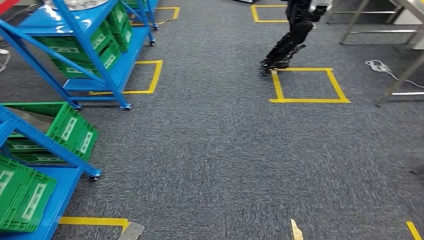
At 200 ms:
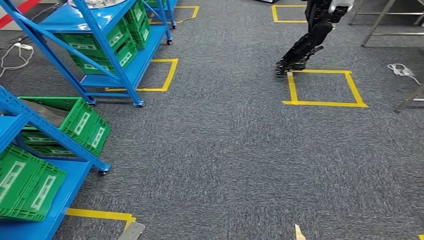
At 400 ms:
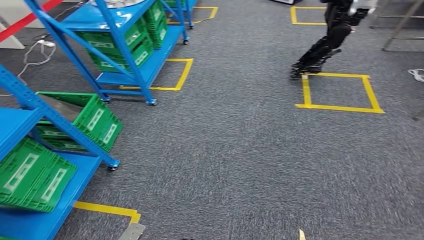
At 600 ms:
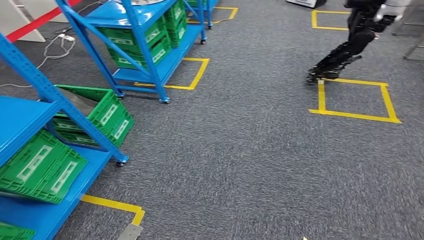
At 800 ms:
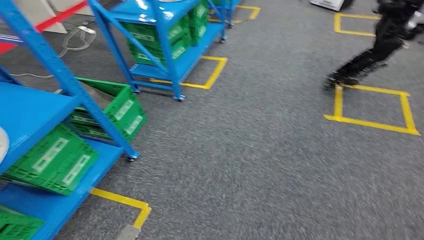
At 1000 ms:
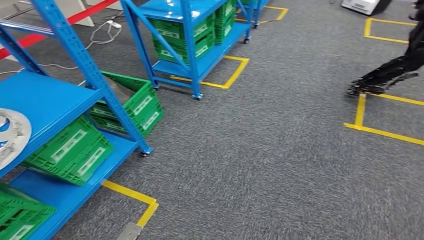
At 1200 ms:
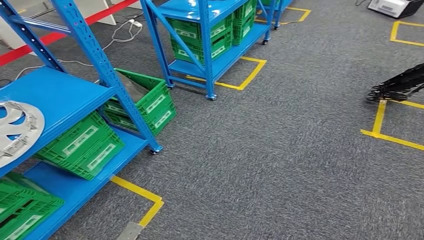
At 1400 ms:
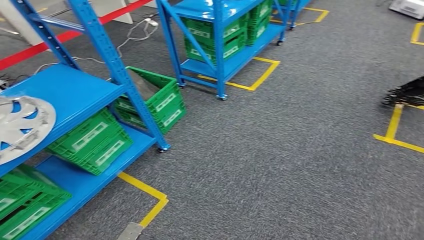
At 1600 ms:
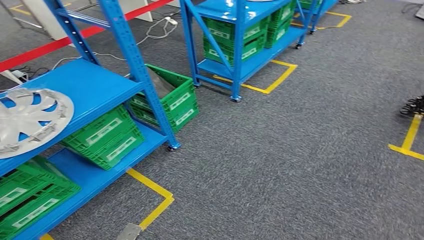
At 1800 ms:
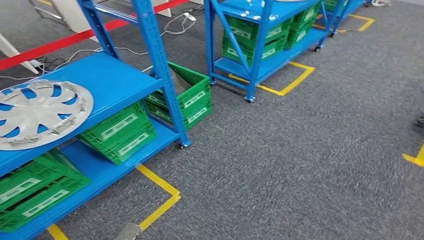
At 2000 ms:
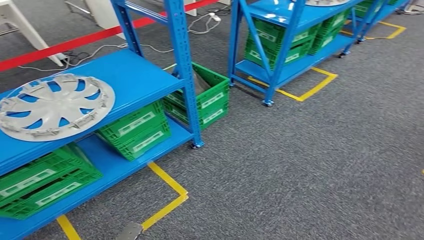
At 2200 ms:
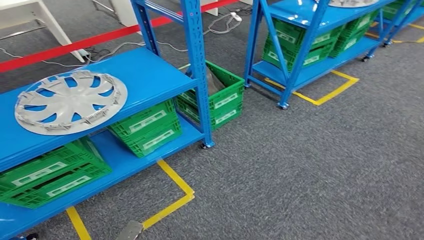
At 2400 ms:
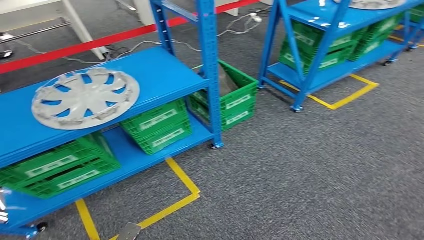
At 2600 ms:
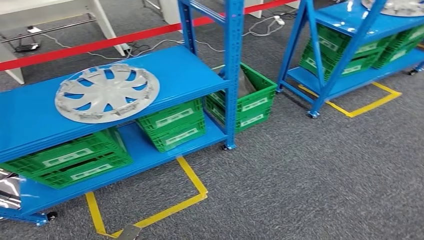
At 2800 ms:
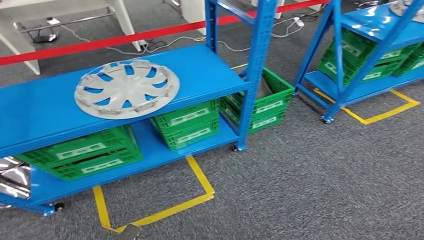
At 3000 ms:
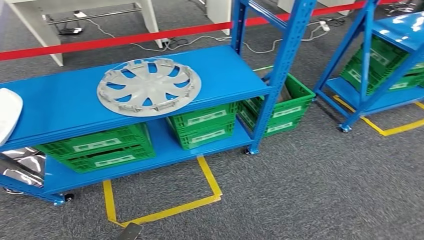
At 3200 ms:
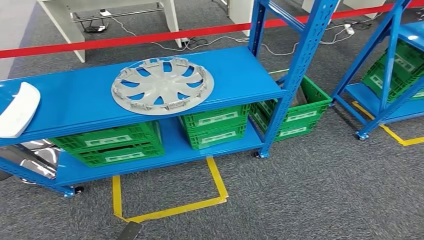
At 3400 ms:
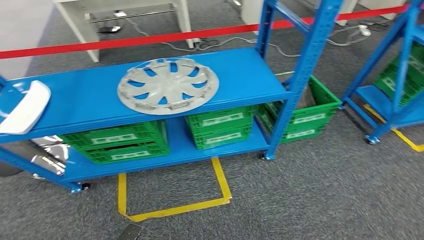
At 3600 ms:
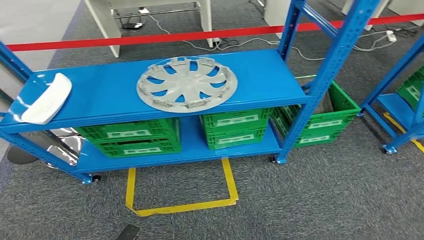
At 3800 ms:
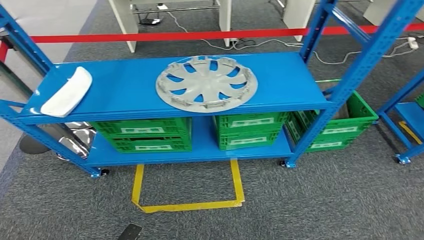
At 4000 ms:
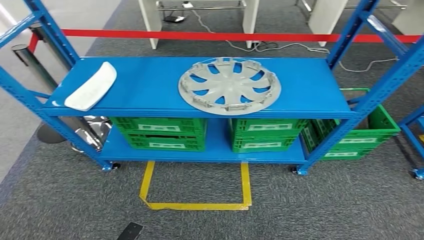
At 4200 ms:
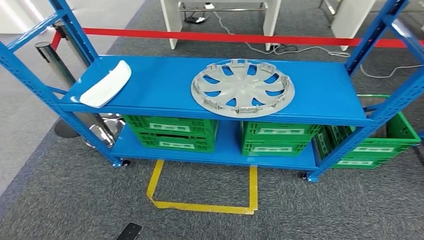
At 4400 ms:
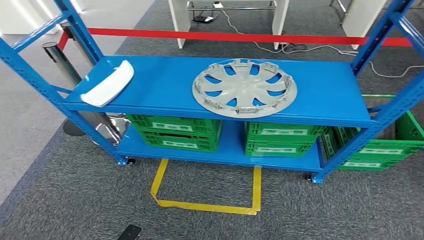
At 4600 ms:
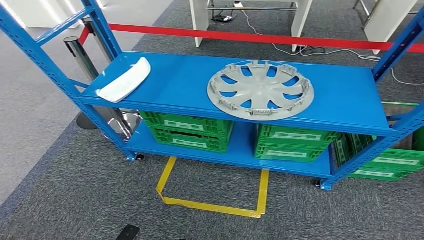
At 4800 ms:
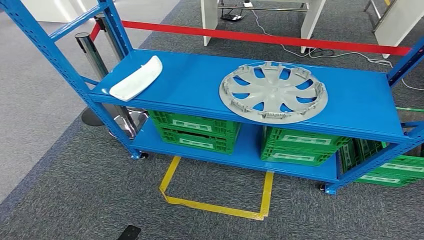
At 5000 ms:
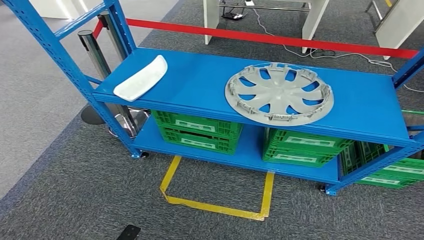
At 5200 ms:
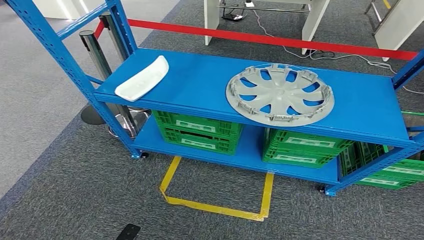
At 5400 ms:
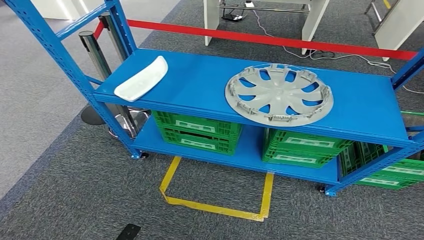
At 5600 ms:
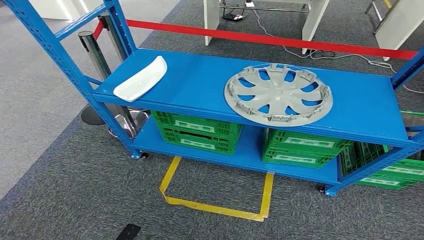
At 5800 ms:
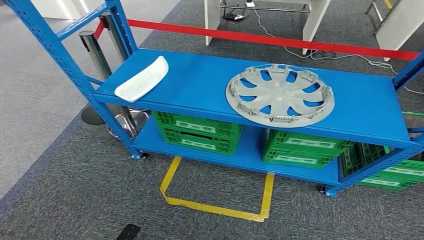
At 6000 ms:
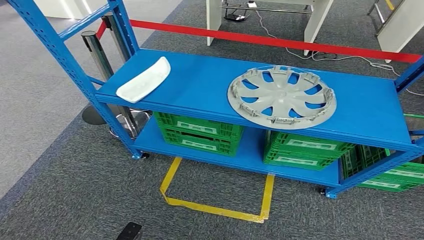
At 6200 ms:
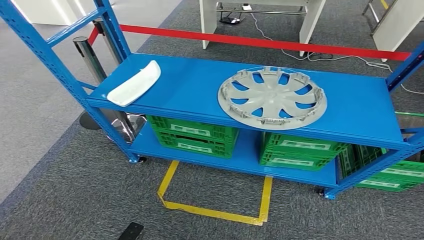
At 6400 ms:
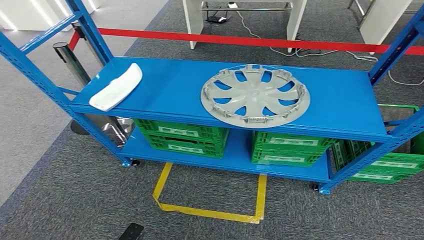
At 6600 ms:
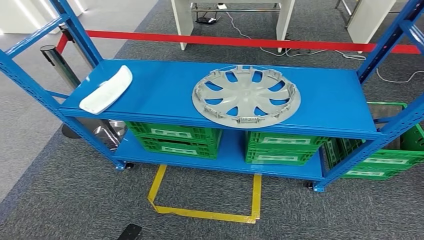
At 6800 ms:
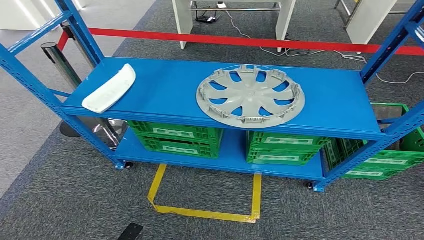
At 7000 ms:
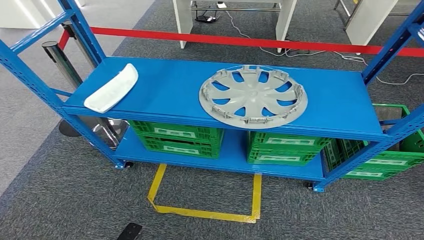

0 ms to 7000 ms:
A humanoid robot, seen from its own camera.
Step, 0 ms to 7000 ms: Return to the initial position at the workbench.

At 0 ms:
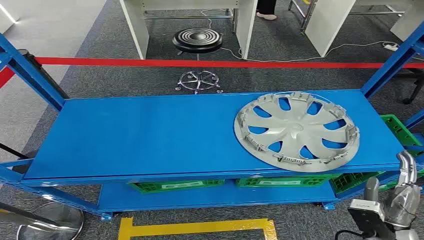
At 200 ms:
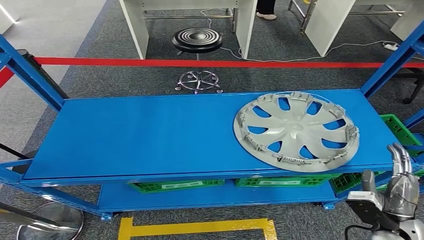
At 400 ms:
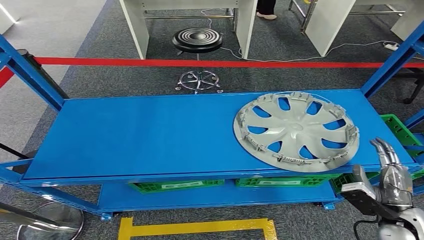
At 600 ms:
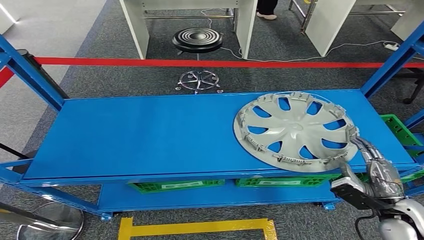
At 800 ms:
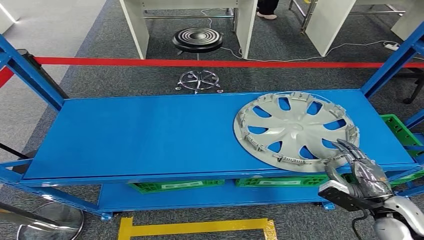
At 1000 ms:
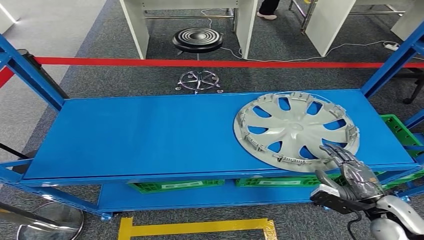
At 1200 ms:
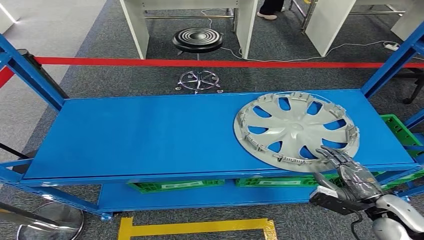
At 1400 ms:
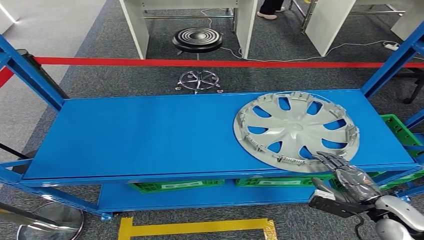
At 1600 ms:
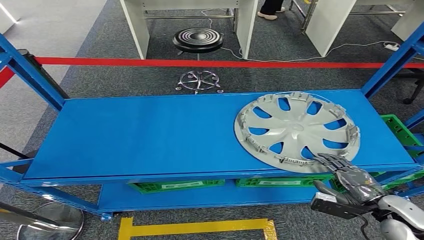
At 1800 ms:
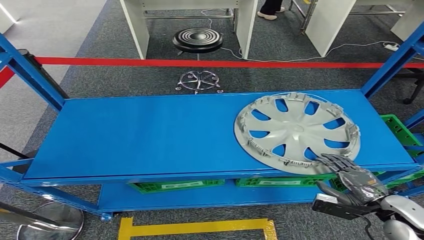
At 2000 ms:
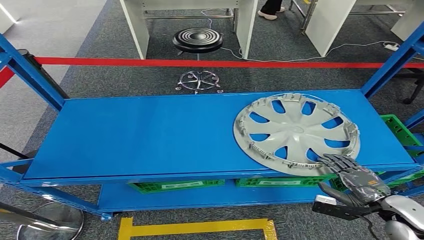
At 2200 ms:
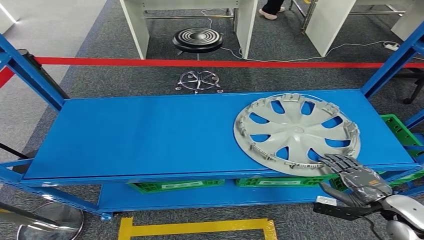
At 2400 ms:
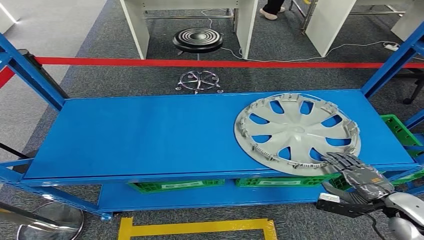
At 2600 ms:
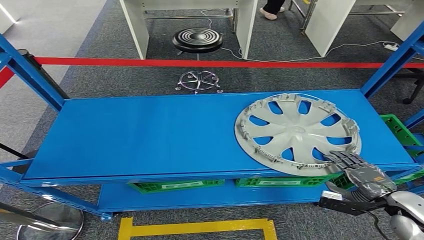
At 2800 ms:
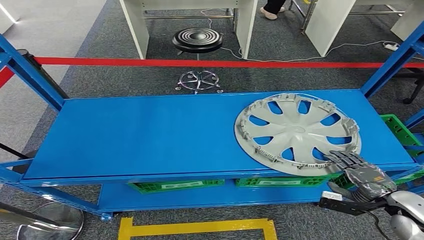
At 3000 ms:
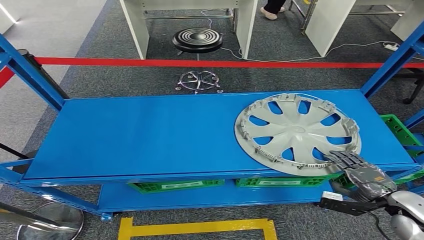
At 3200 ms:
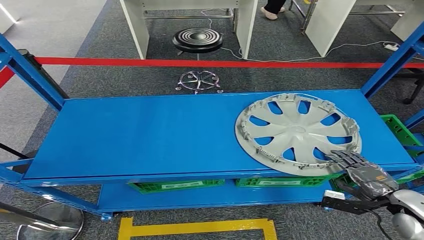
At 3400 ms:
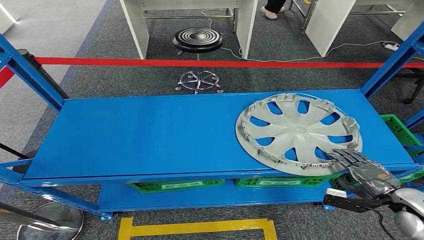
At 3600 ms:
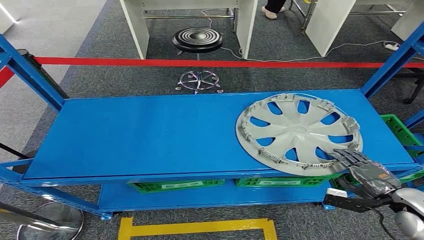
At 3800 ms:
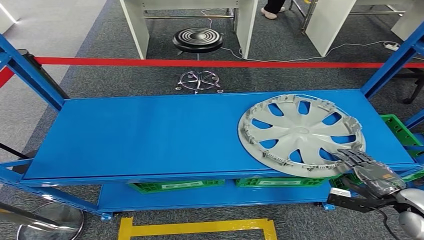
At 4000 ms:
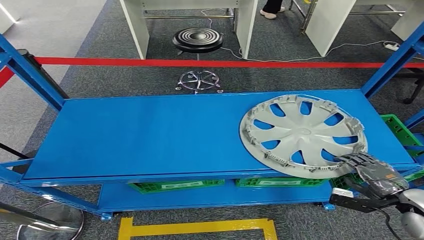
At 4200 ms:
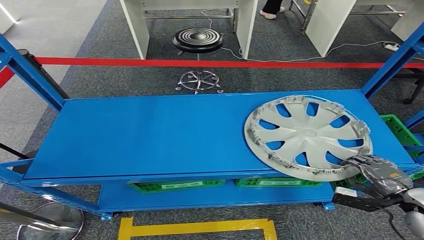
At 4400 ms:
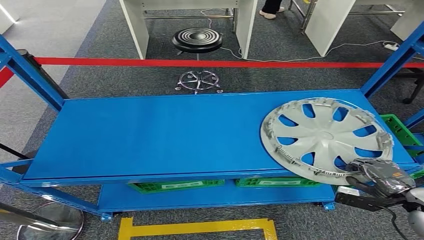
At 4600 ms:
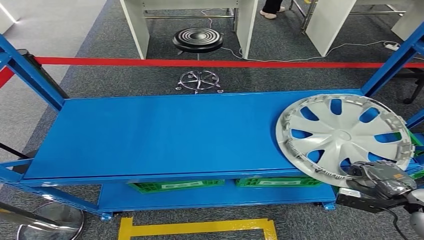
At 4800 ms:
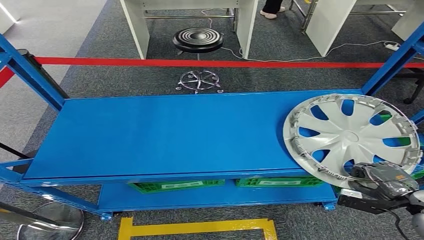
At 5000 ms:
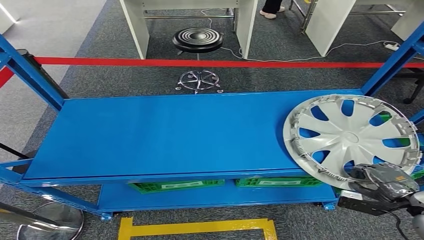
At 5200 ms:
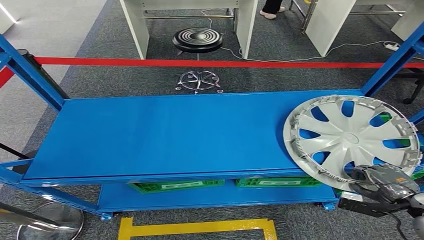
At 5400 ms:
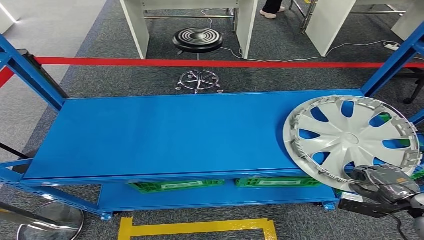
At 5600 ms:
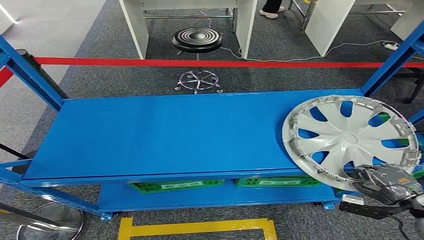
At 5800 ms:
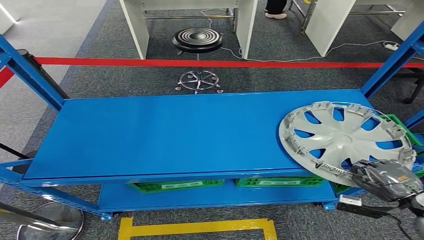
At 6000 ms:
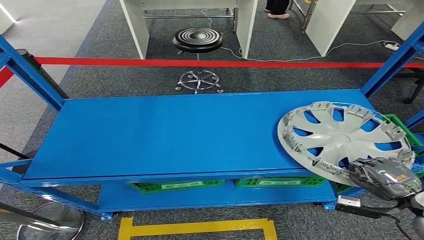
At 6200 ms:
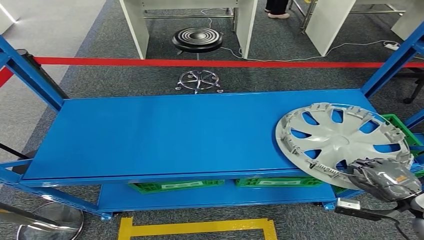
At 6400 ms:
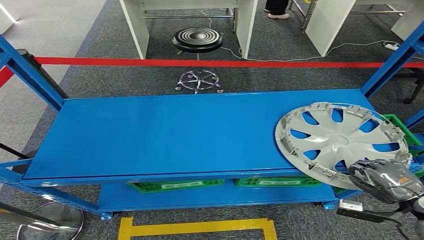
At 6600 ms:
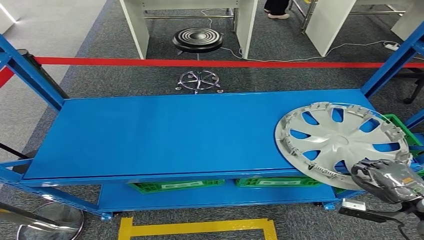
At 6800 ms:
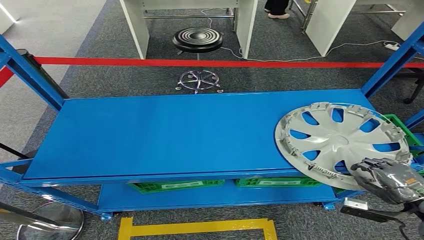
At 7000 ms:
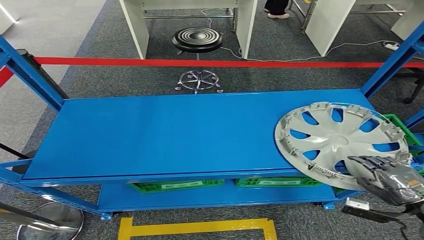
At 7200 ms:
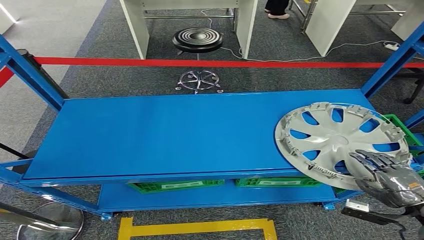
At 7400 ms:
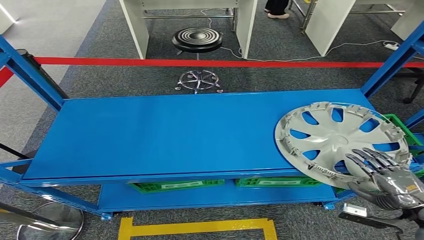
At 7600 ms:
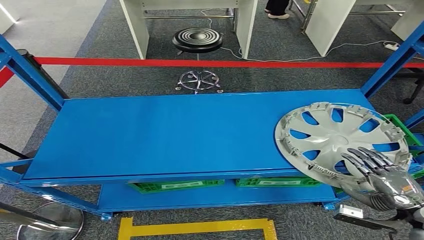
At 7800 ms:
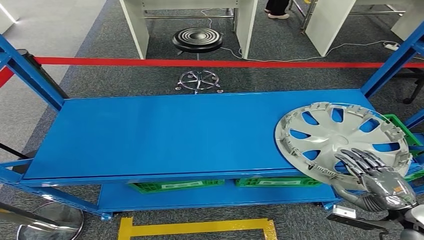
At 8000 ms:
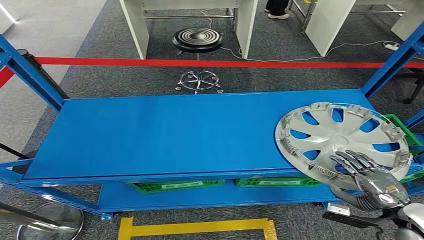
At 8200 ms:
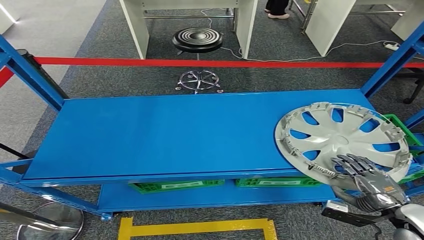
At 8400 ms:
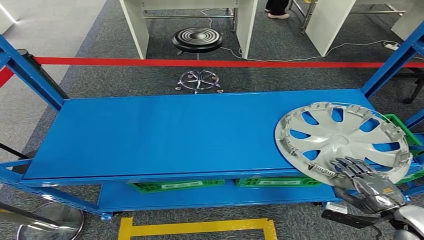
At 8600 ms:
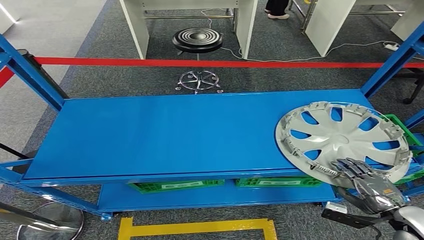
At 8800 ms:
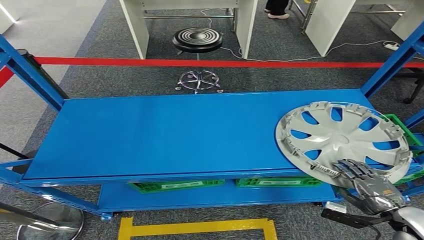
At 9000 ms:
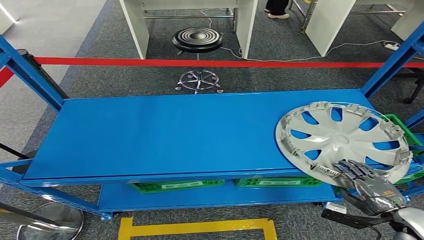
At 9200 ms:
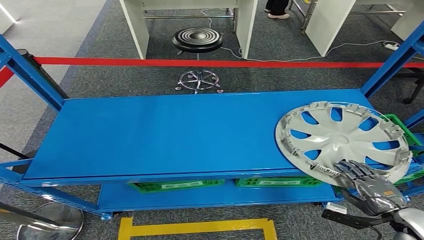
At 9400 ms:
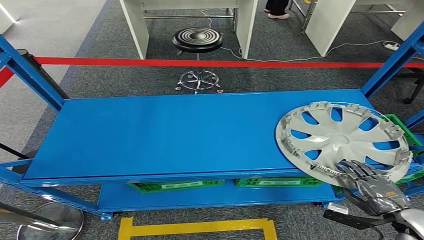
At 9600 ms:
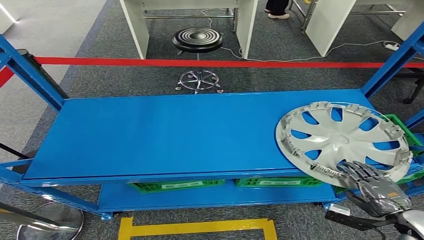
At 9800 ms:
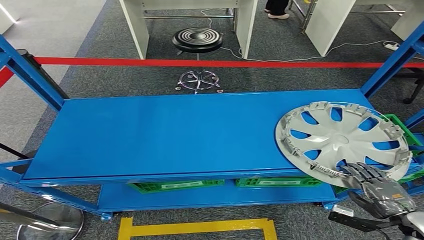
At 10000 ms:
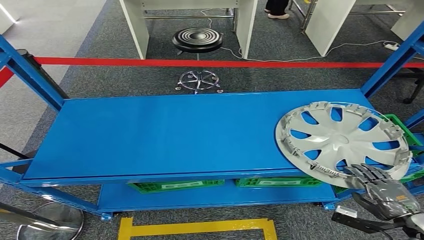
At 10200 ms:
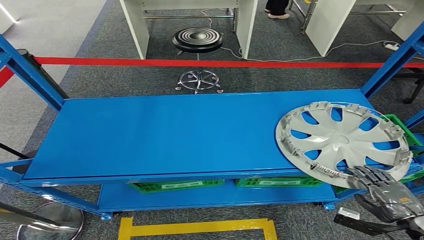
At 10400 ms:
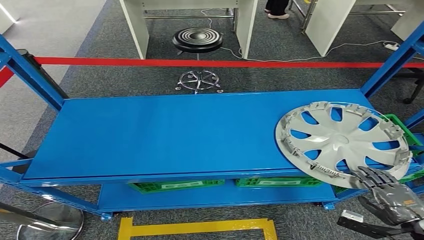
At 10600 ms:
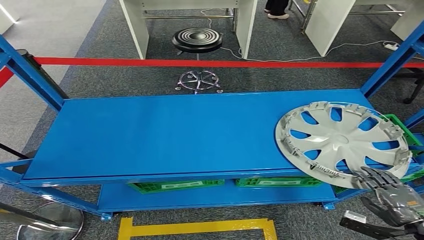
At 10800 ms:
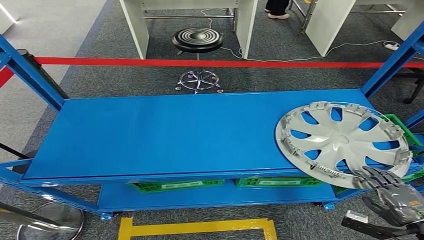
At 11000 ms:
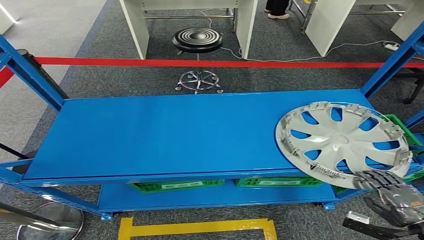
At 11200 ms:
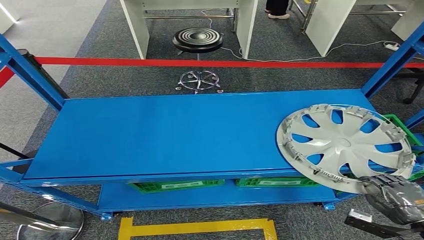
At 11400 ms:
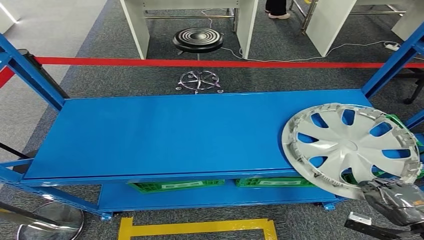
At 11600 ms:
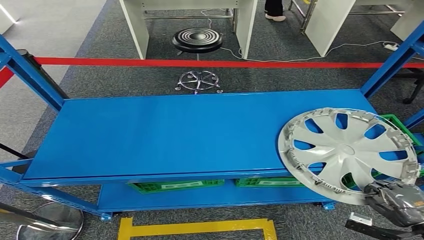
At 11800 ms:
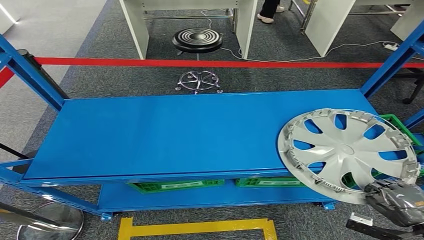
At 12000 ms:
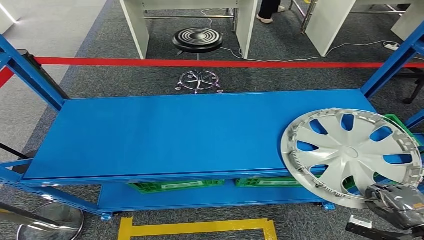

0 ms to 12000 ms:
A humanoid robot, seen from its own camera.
1600 ms to 3000 ms: The hands move only a little.
3000 ms to 9000 ms: There are only small adjustments of the hands.
9000 ms to 12000 ms: The hands move only a little.
